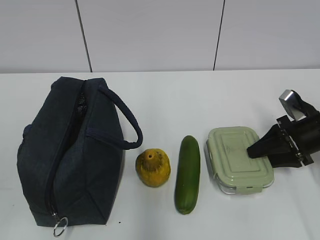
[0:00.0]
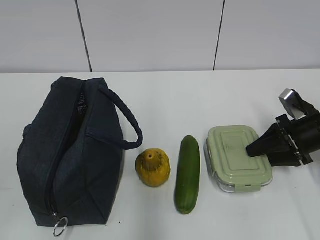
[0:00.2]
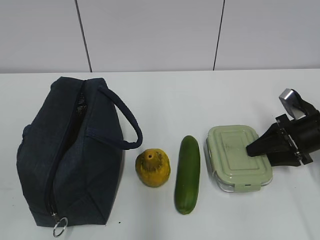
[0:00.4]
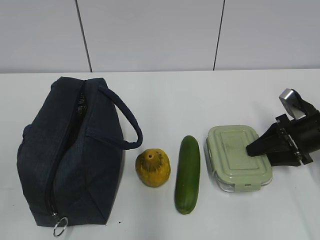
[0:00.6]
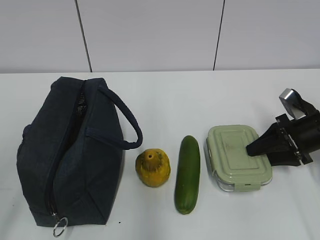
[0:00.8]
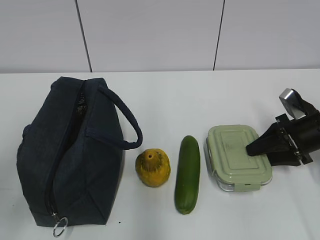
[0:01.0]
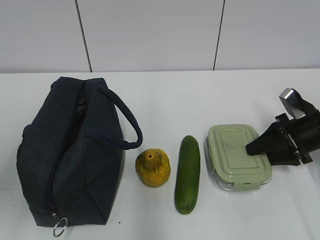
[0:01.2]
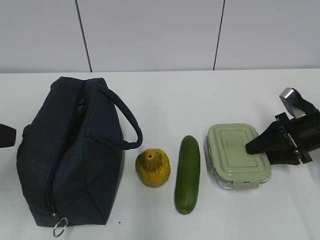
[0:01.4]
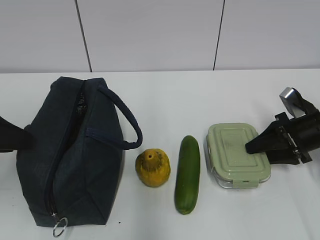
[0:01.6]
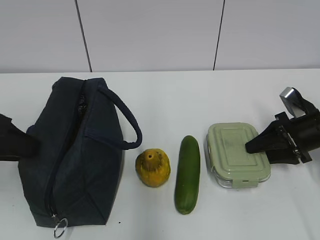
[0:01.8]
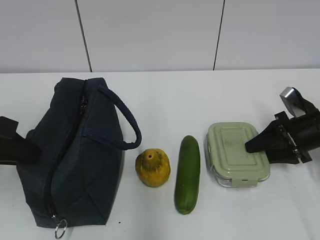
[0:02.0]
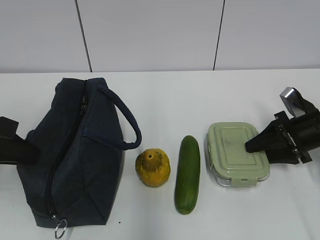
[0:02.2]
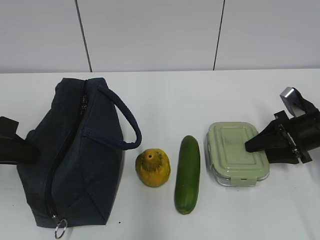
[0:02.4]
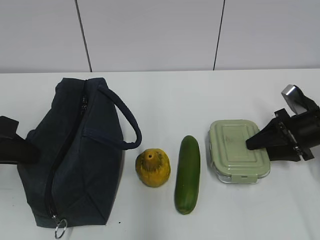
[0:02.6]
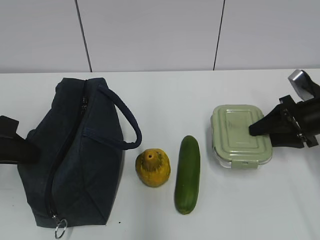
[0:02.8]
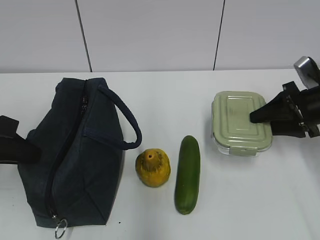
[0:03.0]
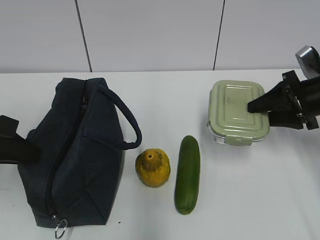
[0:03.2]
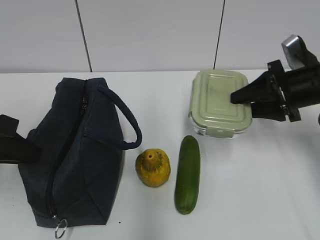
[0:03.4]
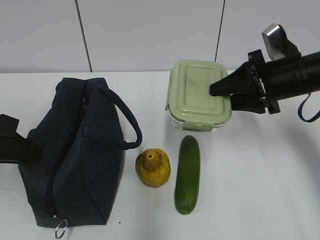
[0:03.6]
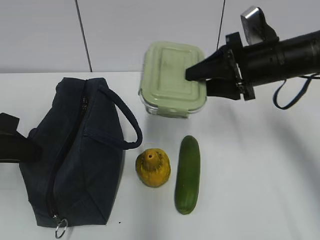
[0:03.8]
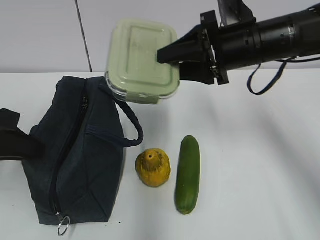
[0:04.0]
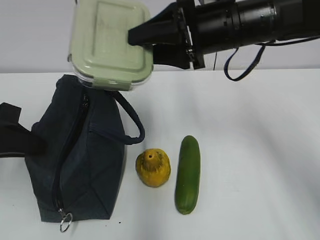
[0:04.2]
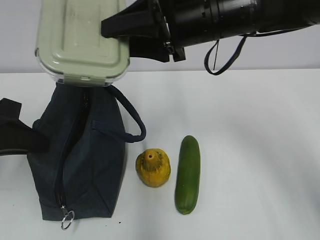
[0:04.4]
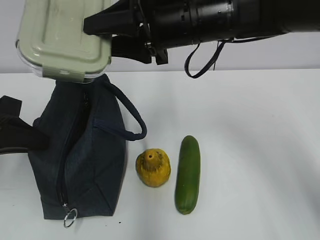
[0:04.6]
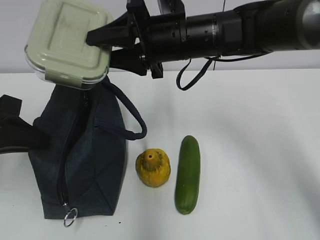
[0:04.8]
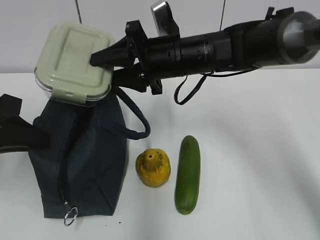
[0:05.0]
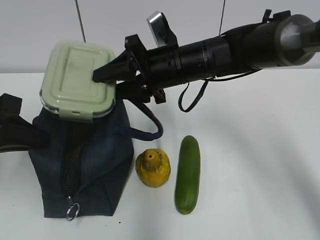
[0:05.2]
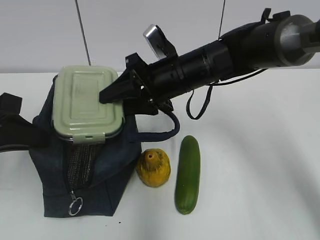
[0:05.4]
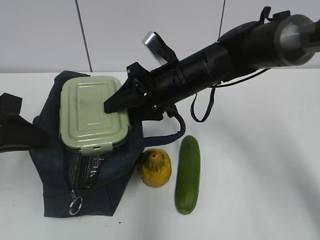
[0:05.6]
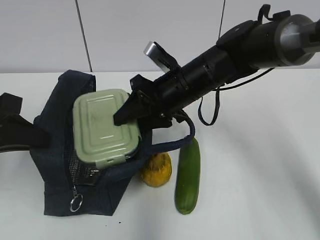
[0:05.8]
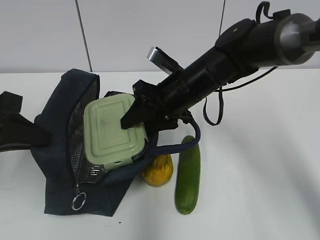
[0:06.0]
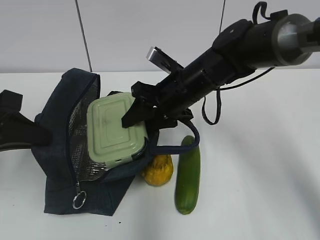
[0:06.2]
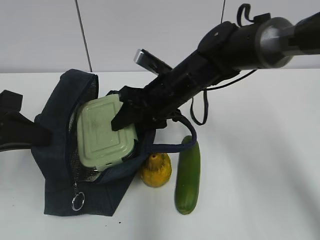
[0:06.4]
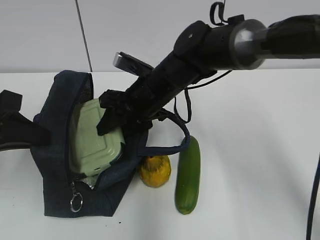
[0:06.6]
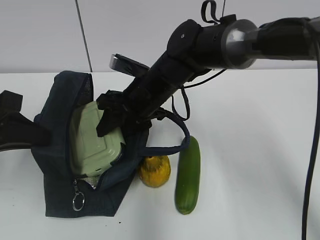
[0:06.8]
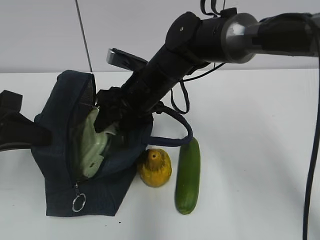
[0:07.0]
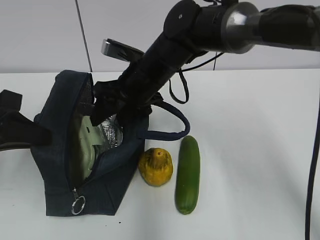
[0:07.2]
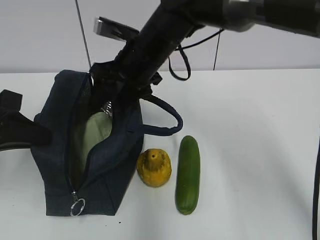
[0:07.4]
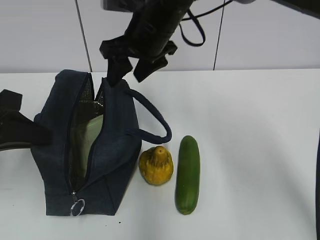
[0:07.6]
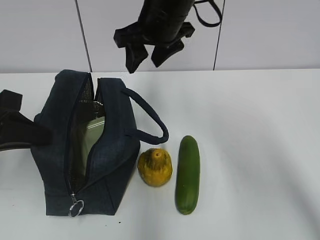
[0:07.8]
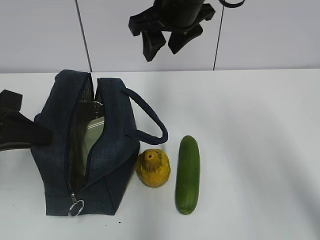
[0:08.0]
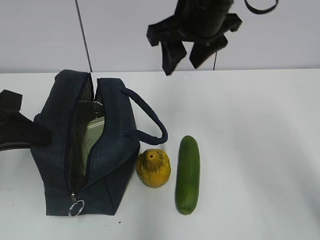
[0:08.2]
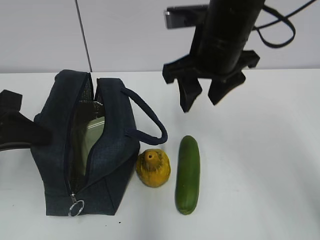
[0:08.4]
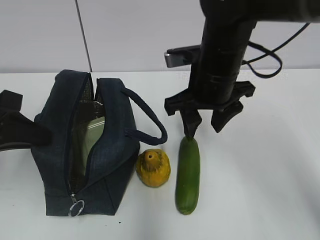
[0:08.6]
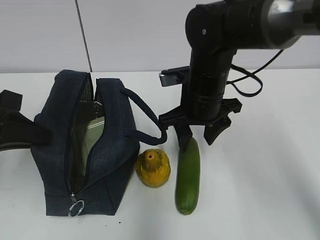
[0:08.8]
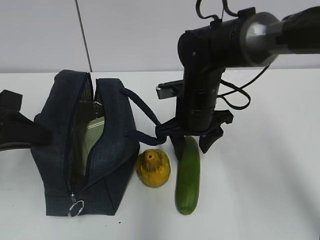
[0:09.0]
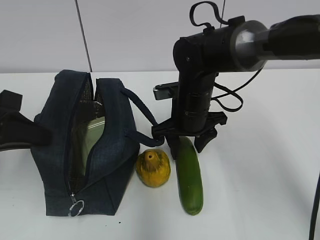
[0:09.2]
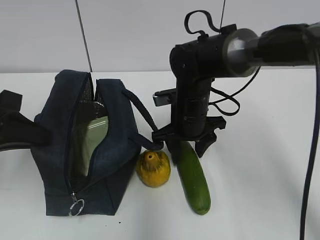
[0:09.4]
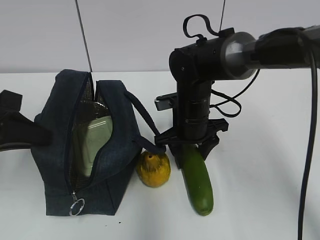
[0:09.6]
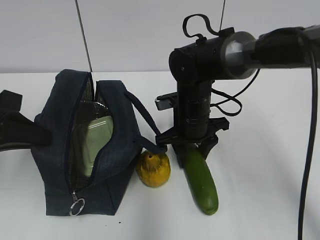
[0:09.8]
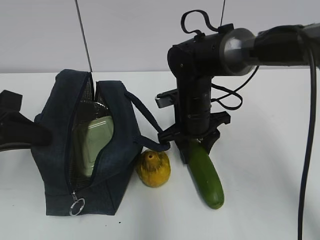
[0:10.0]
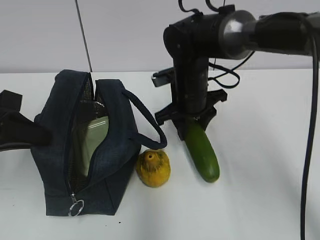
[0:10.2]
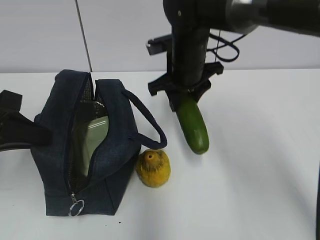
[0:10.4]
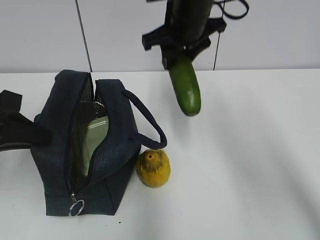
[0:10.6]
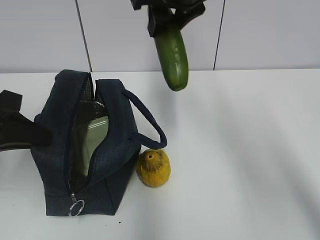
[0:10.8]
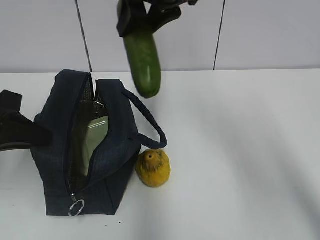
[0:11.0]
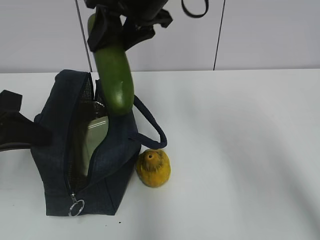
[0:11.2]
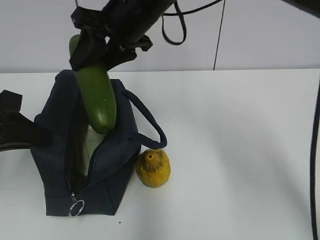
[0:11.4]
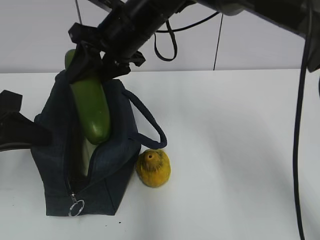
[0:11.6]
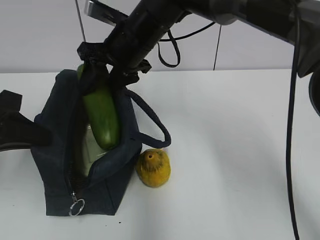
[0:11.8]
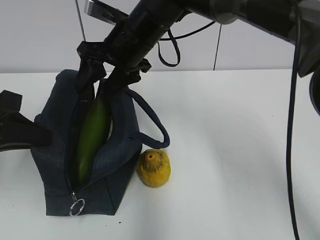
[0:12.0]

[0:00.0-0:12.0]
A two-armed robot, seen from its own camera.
Step, 0:05.8 to 0:07.2: Place it into the bag with your right hand.
Step, 0:07.6 to 0:09.6: Grab the cucumber with your right hand.
0:00.0 to 0:01.6: The left gripper travels forward by roughly 20 cm.
0:01.6 to 0:03.0: The right gripper goes about 5 cm upward; the left gripper closes its fingers.
0:03.0 to 0:04.4: The right gripper is displaced to the left and upward by approximately 25 cm.
0:04.4 to 0:06.0: The right gripper is displaced downward by roughly 10 cm.
0:06.0 to 0:07.6: The right gripper goes approximately 10 cm upward.
0:07.6 to 0:09.0: The right gripper shifts approximately 15 cm downward and to the right.
0:09.0 to 0:10.4: The right gripper ends up roughly 5 cm from where it was.
0:10.4 to 0:12.0: The right gripper shifts some 5 cm to the left, and goes upward and returns, roughly 15 cm each way.

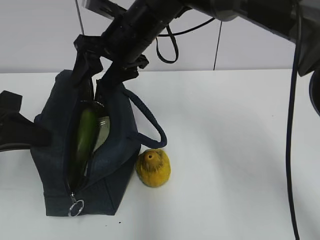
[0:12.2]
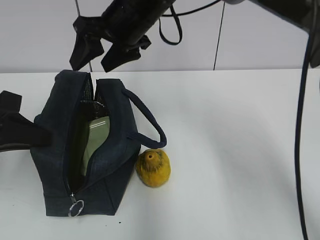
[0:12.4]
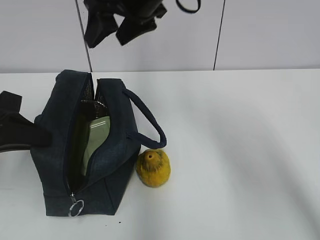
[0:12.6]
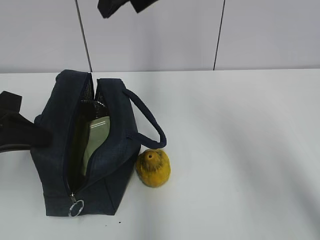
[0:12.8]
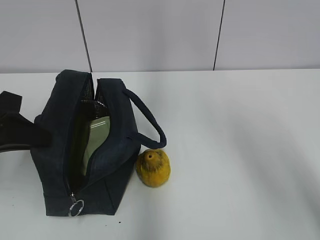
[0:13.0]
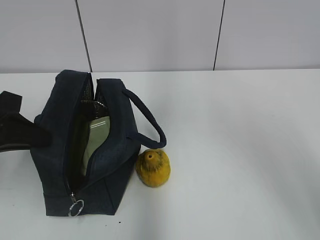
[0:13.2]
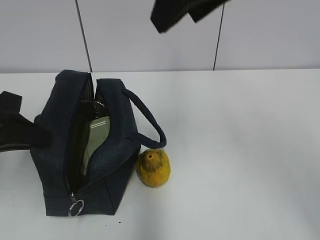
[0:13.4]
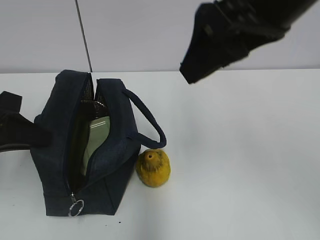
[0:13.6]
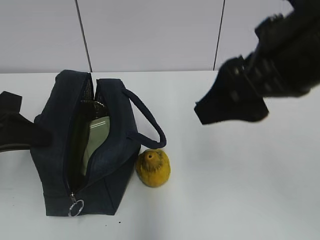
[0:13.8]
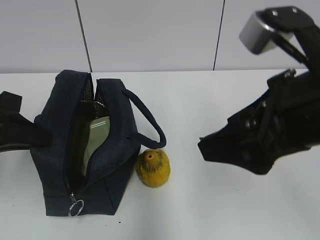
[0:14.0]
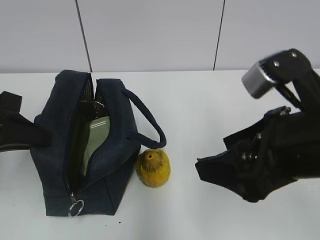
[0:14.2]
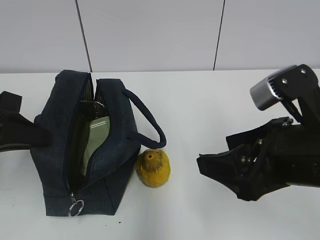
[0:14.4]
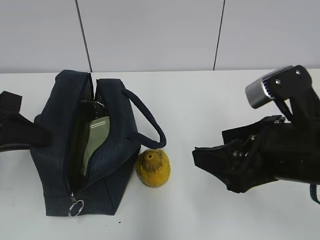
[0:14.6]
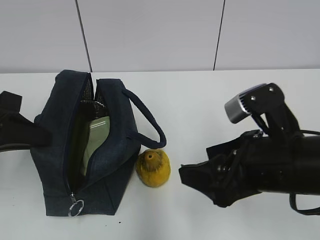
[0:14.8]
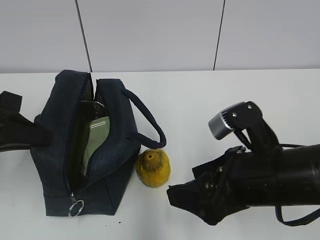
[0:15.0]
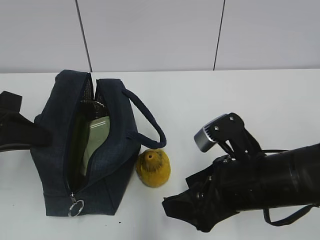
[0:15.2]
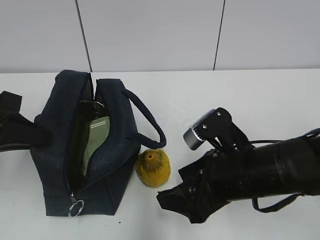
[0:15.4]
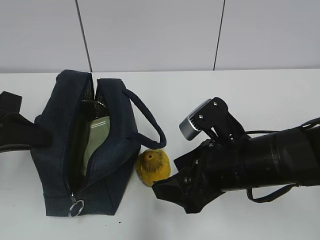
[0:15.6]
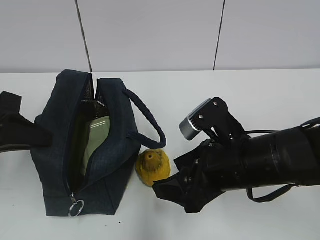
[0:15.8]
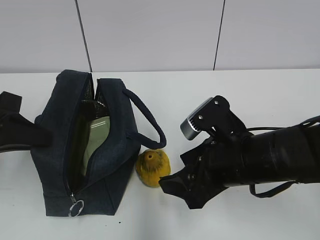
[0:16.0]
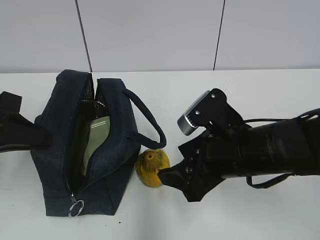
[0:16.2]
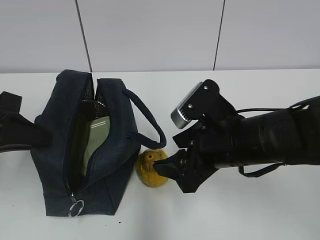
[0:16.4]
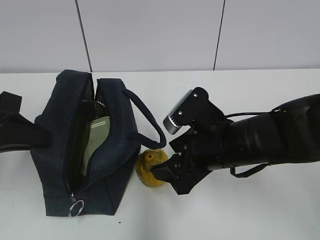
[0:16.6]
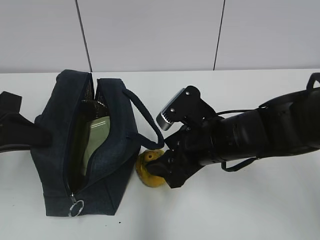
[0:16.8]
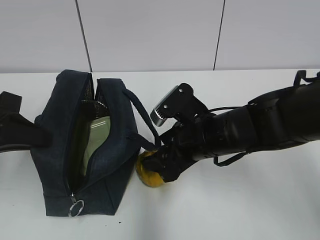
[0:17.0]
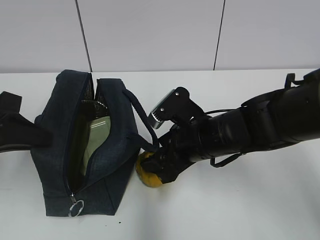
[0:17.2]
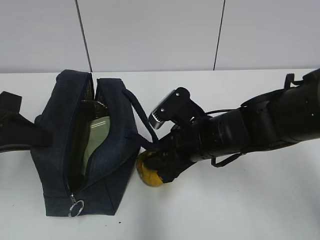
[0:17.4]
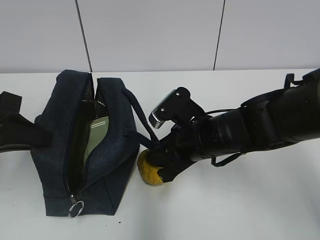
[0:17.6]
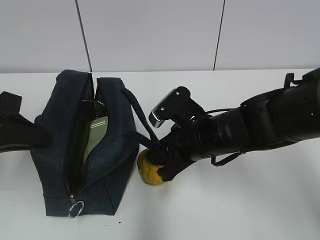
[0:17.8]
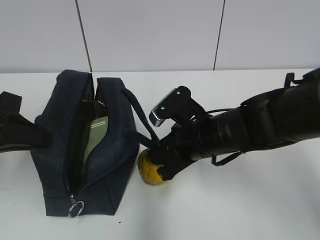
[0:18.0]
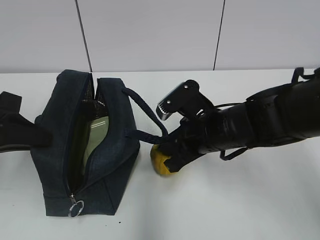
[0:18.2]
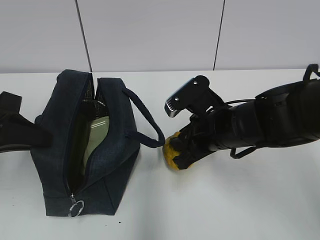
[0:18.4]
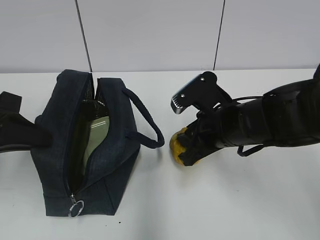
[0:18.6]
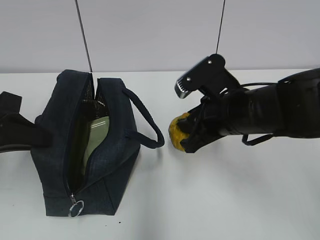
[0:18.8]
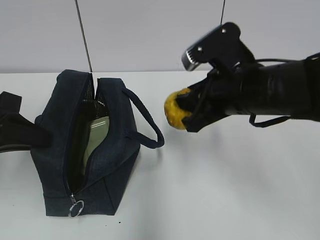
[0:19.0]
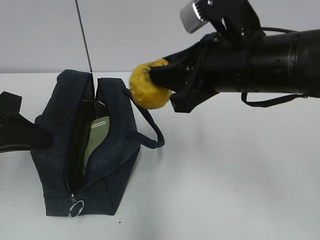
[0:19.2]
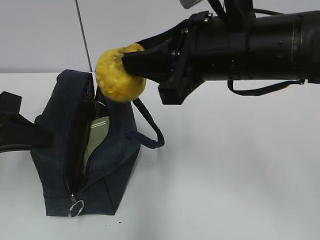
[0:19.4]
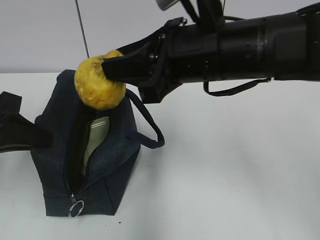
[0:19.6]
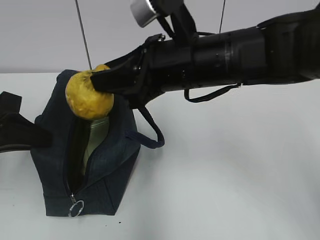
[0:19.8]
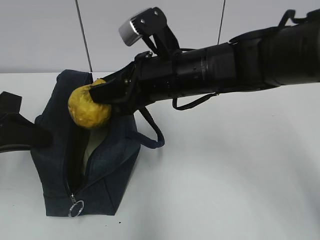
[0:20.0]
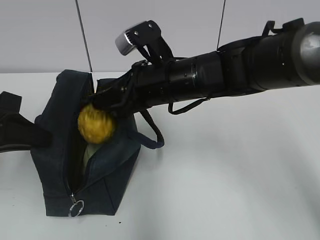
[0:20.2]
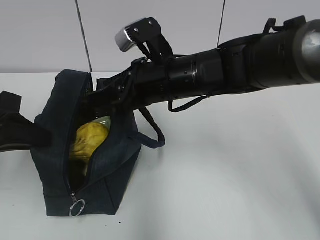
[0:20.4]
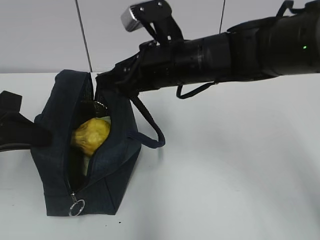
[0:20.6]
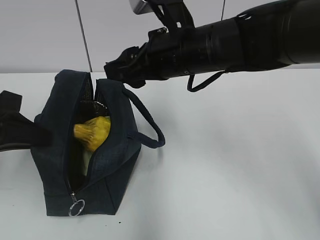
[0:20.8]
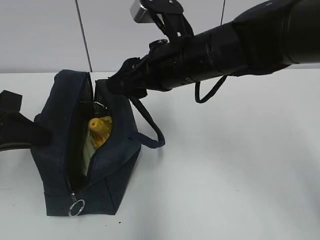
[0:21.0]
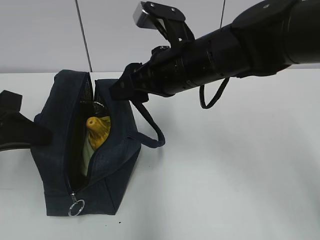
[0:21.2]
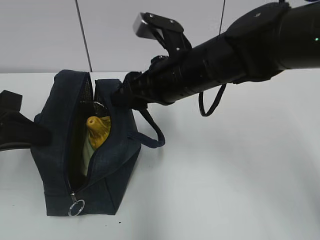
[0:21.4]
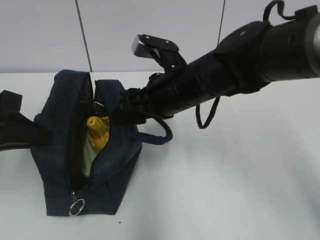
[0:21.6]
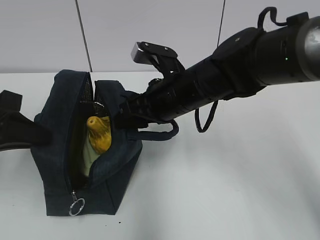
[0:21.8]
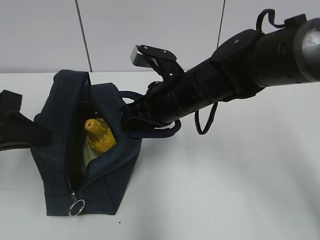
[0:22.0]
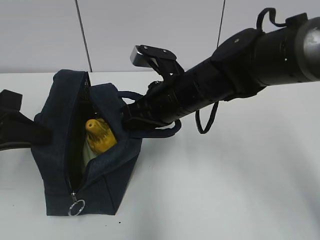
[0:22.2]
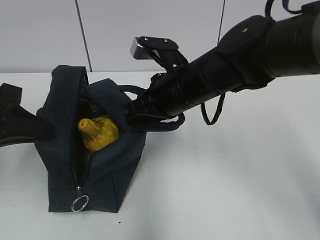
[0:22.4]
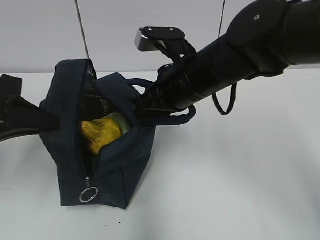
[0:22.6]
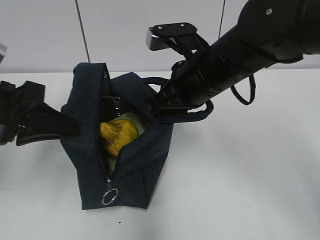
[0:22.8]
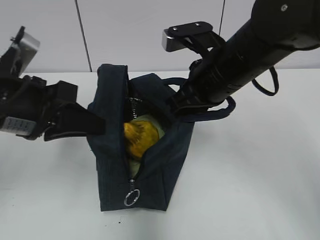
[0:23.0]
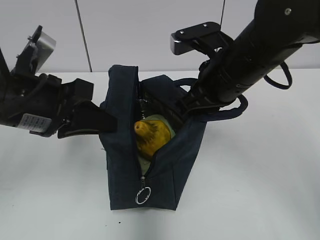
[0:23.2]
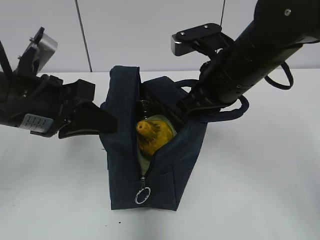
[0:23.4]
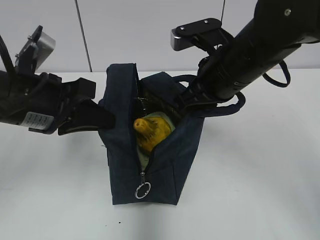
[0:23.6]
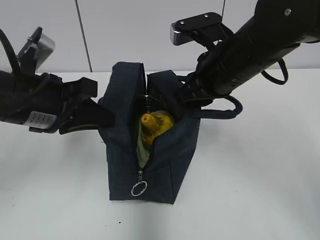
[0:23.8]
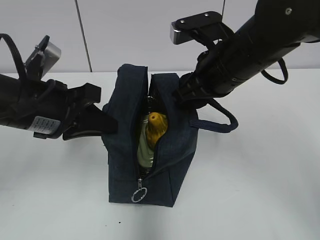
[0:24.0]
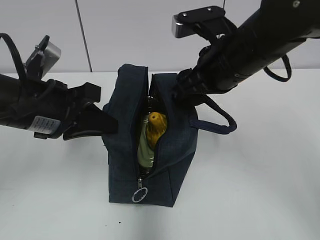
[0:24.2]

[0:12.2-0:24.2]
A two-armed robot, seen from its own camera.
Step, 0:12.4 to 0:17.8: Grab the pear with your right hand.
Step, 0:20.6 to 0:22.2: Grab the lunch bag with your right hand.
0:12.2 to 0:13.8: The right gripper shifts roughly 25 cm backward and to the right.
0:13.8 to 0:15.2: The right gripper heads downward, covering about 20 cm.
0:15.2 to 0:16.6: The right gripper heads forward, covering about 5 cm.
0:16.6 to 0:18.2: The right gripper closes.
0:18.2 to 0:19.8: The right gripper travels upward by about 10 cm.
0:19.8 to 0:21.2: The right gripper opens its fingers.
0:21.2 to 0:22.6: The right gripper closes its fingers.
0:22.6 to 0:24.2: Both grippers travel together to the right, approximately 5 cm. The right gripper opens up.
